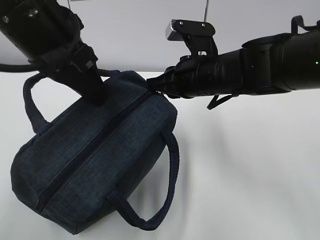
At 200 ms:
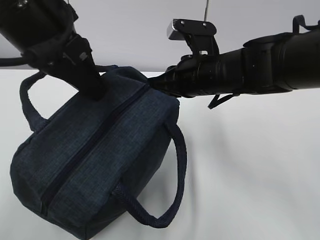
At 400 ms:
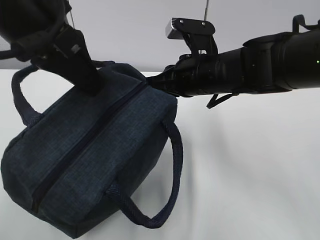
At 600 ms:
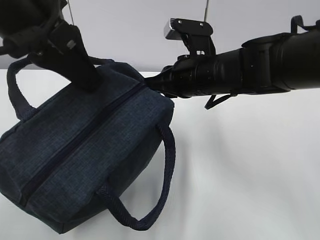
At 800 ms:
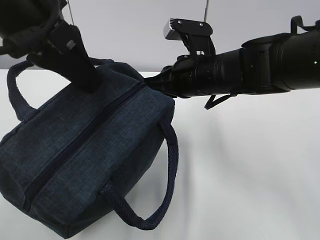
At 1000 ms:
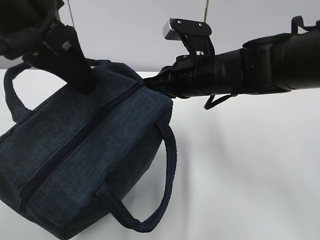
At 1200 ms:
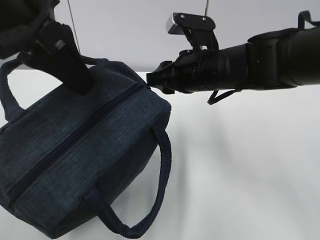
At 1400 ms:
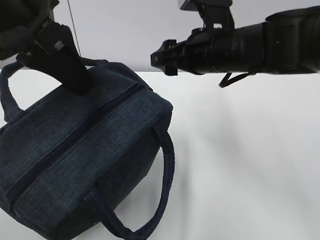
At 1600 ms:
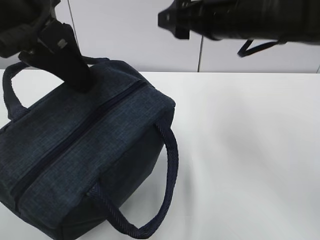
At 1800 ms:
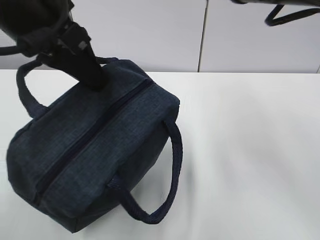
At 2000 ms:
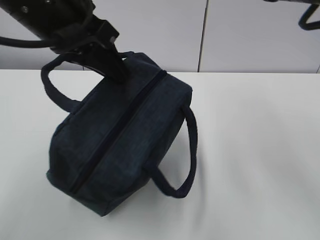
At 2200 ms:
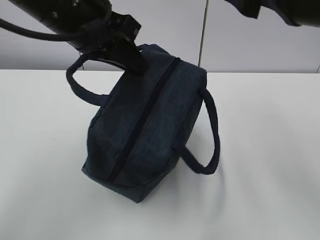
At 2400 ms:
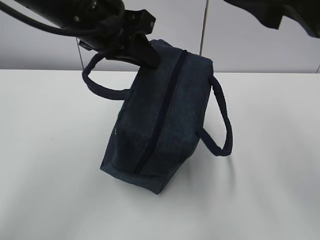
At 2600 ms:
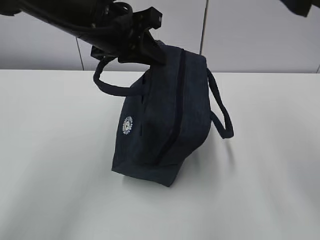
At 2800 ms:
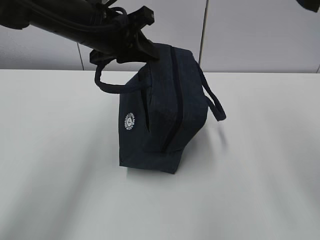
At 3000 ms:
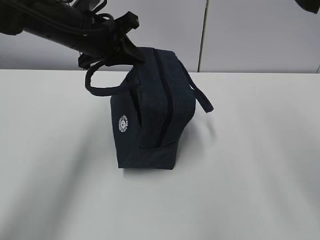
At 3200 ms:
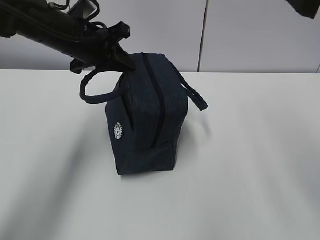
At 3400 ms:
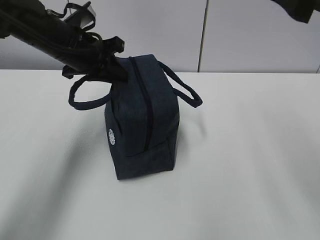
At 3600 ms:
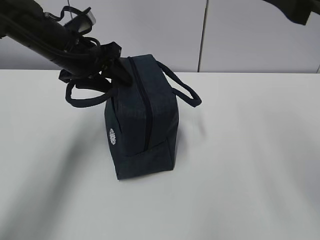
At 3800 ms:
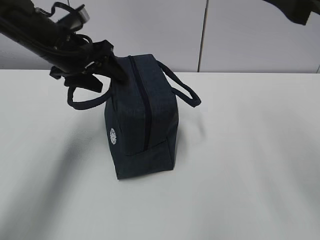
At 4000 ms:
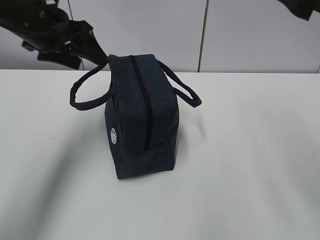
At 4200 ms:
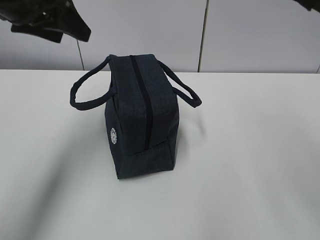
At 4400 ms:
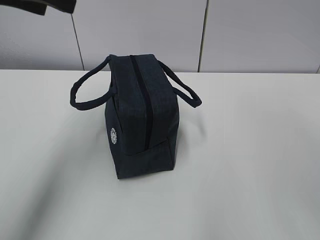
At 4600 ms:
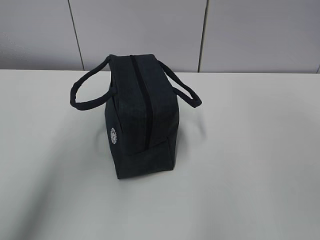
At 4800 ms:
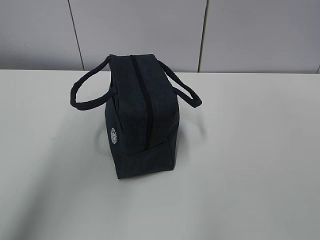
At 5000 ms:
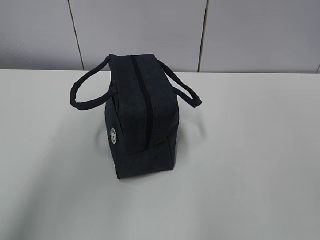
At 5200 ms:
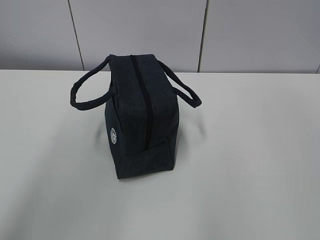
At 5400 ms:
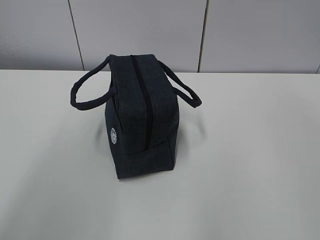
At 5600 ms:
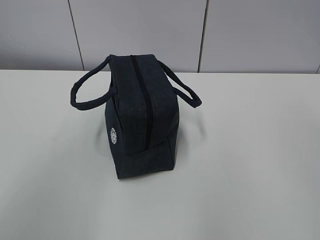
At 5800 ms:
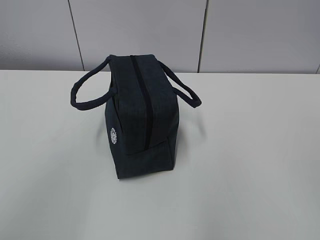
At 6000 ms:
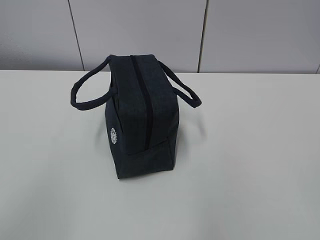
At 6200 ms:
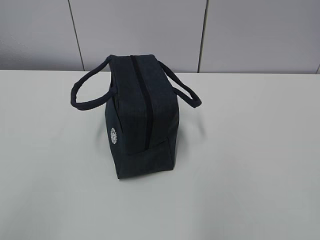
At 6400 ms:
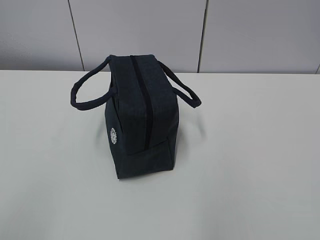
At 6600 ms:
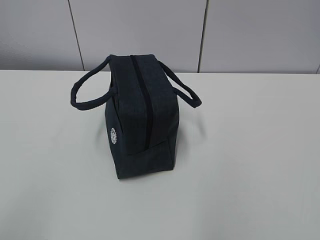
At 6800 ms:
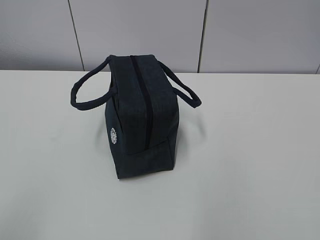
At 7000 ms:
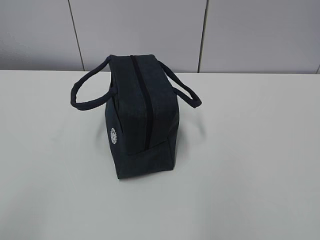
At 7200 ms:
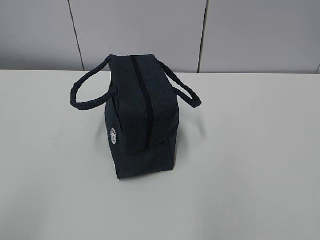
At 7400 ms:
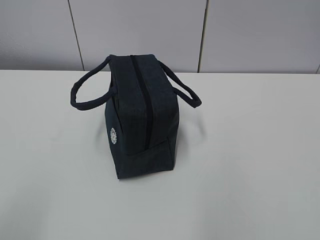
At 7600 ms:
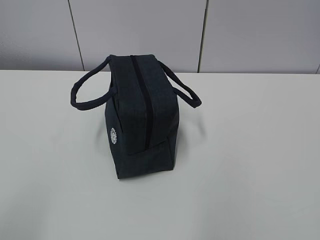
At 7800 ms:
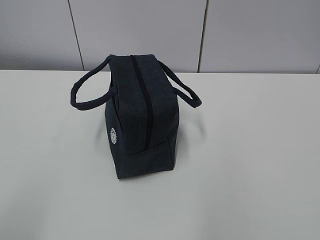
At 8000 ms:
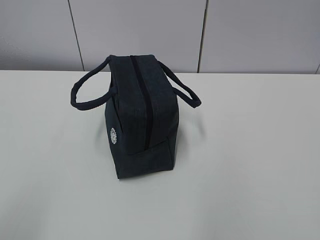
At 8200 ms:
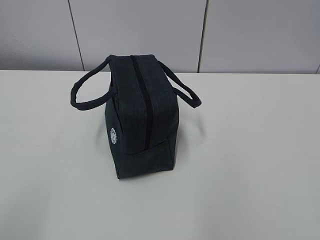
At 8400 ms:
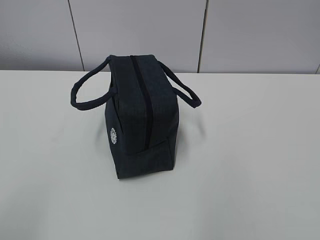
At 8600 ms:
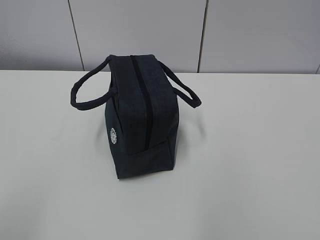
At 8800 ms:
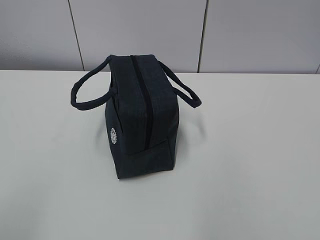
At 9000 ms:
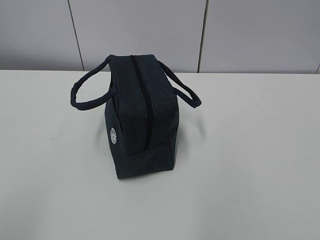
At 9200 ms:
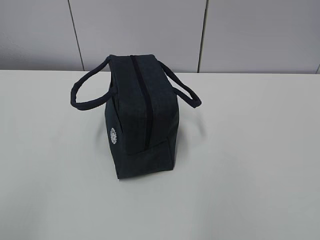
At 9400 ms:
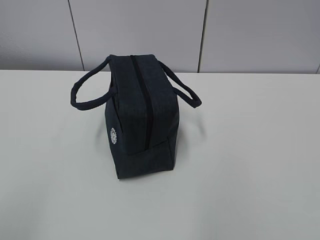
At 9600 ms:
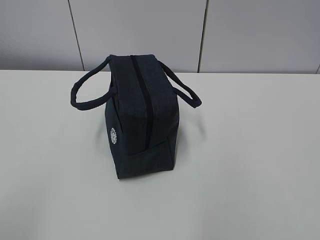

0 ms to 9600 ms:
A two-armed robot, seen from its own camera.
0 ms to 1600 ms: The right gripper shifts some 10 cm upward, and opens its fingers.
1600 ms to 3200 ms: The right gripper heads backward and to the right, covering roughly 15 cm. The left gripper goes approximately 20 cm forward and downward.
3200 ms to 4800 ms: The left gripper is displaced upward, backward and to the left by roughly 25 cm, and opens its fingers, while the right gripper heads upward, covering some 10 cm.
4800 ms to 6400 ms: The left gripper shifts approximately 30 cm backward; the right gripper moves backward, downward and to the right, some 30 cm.
